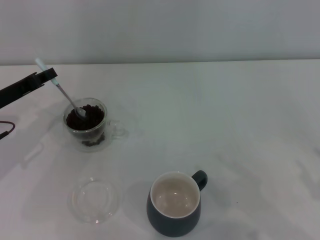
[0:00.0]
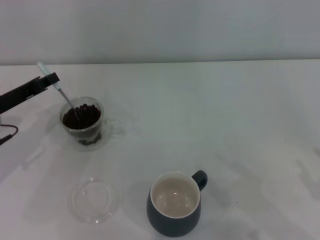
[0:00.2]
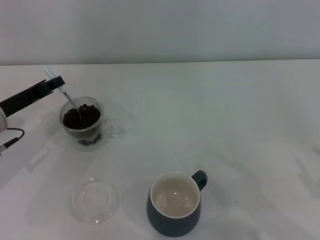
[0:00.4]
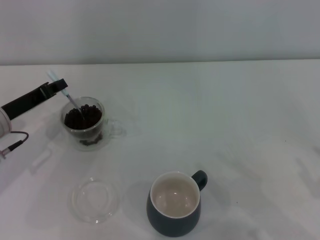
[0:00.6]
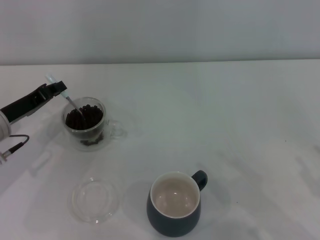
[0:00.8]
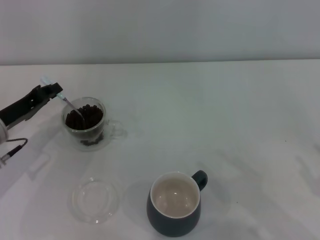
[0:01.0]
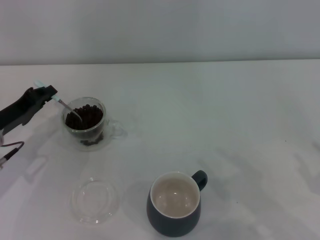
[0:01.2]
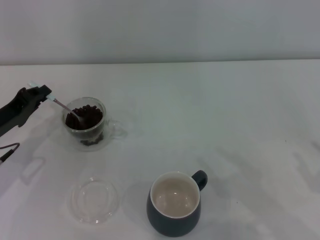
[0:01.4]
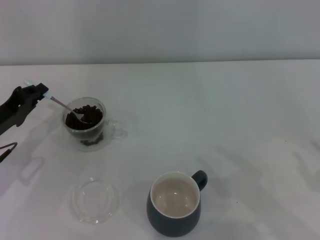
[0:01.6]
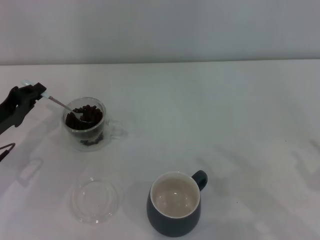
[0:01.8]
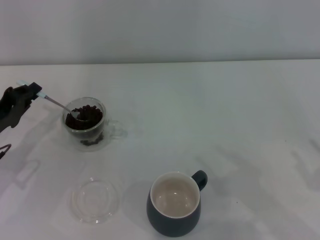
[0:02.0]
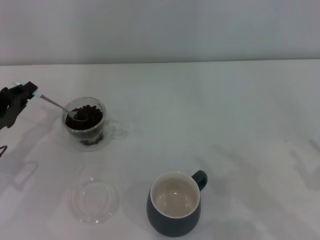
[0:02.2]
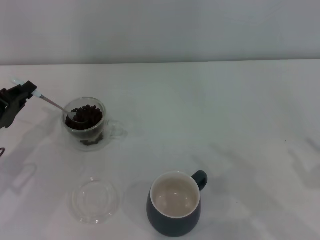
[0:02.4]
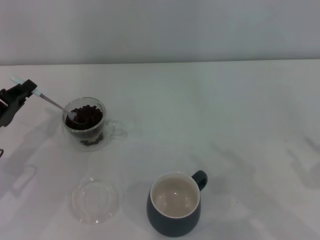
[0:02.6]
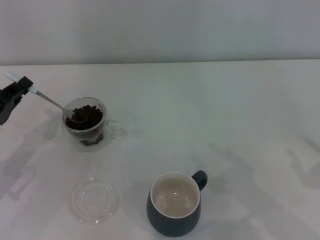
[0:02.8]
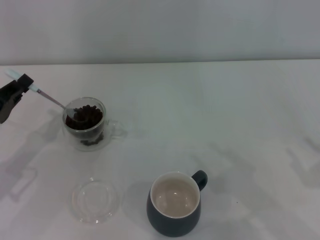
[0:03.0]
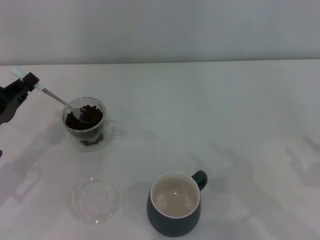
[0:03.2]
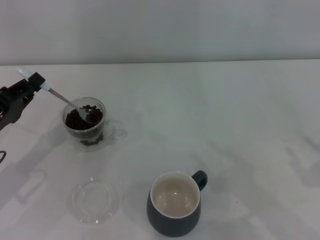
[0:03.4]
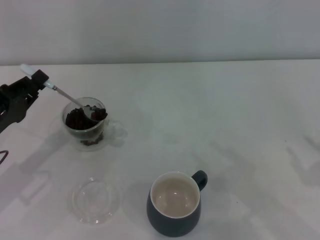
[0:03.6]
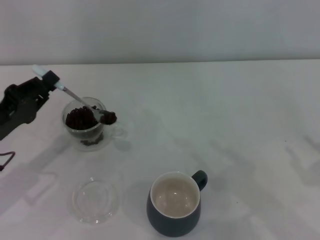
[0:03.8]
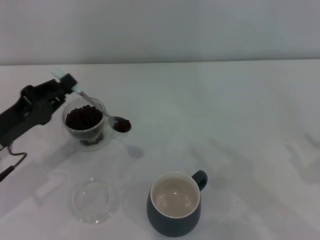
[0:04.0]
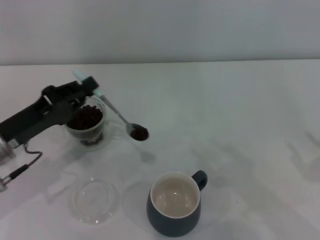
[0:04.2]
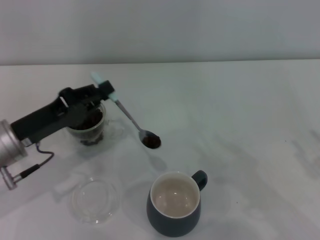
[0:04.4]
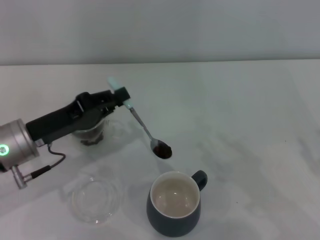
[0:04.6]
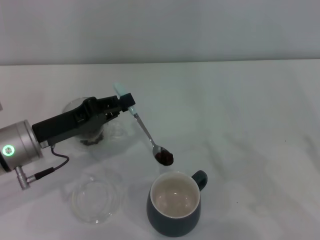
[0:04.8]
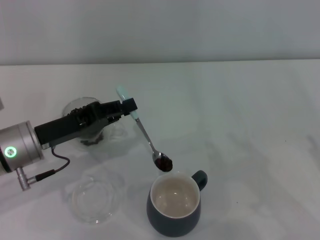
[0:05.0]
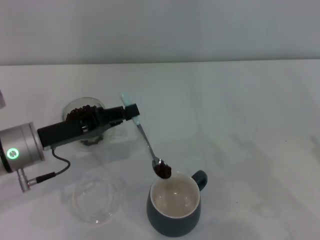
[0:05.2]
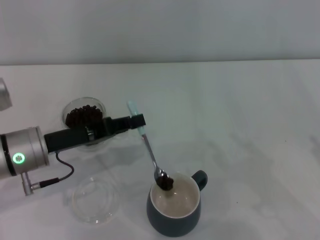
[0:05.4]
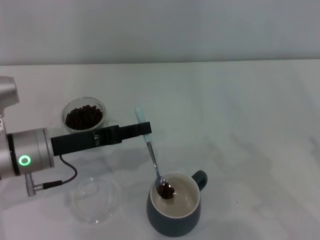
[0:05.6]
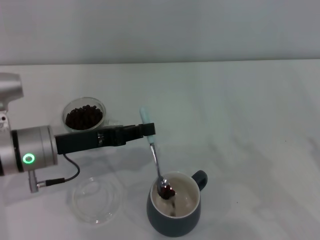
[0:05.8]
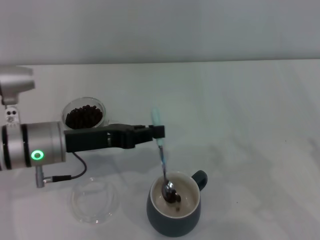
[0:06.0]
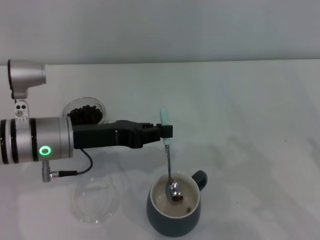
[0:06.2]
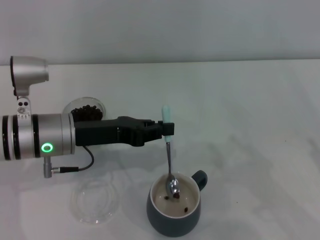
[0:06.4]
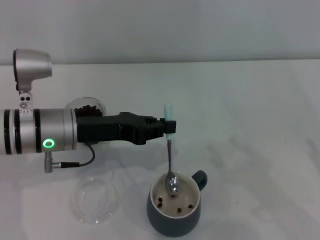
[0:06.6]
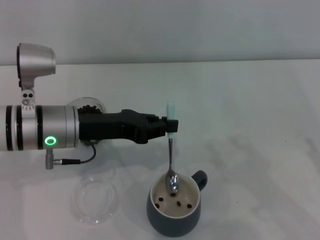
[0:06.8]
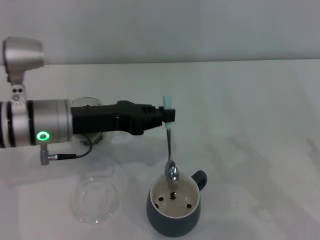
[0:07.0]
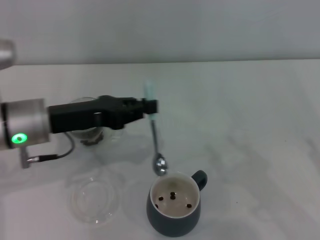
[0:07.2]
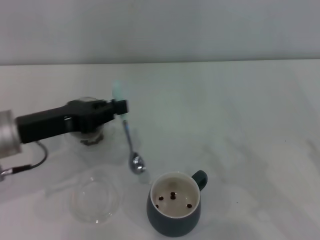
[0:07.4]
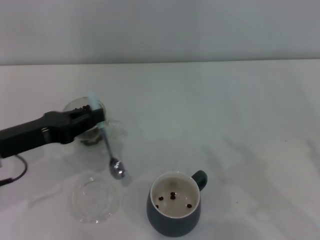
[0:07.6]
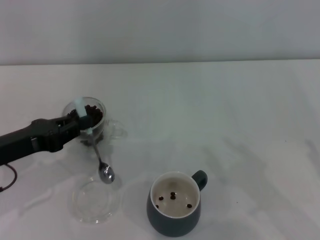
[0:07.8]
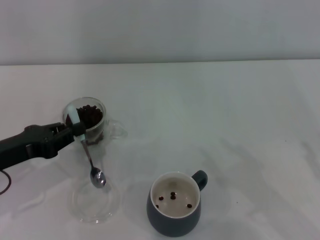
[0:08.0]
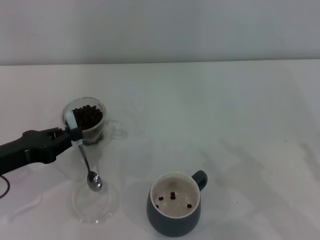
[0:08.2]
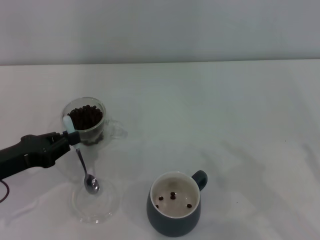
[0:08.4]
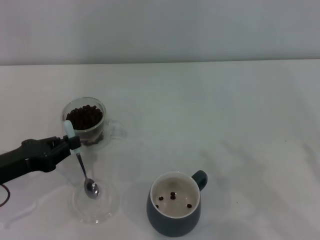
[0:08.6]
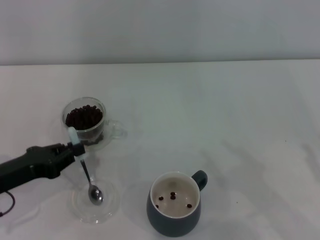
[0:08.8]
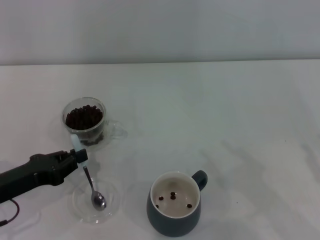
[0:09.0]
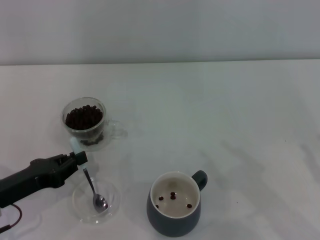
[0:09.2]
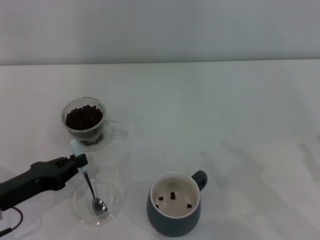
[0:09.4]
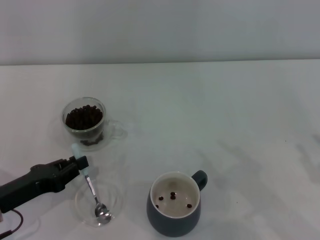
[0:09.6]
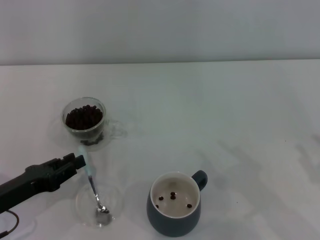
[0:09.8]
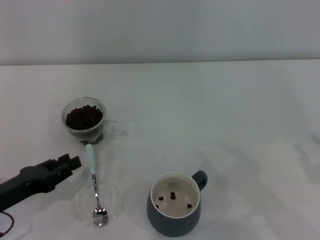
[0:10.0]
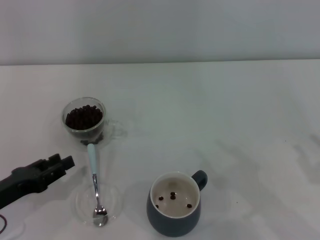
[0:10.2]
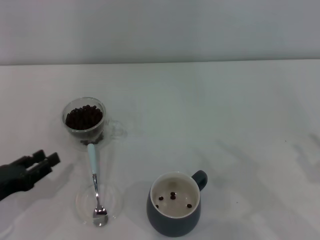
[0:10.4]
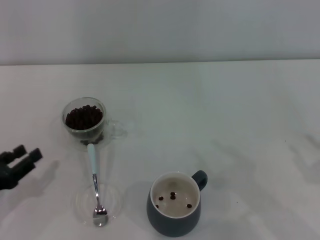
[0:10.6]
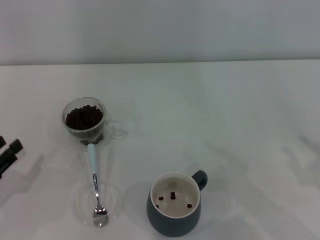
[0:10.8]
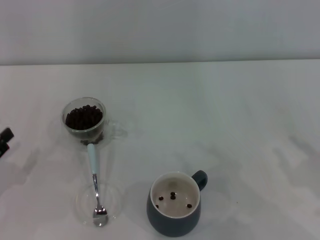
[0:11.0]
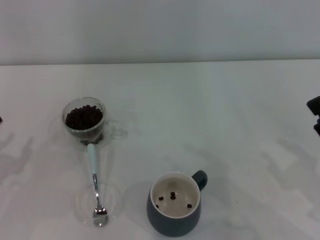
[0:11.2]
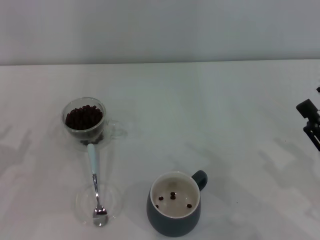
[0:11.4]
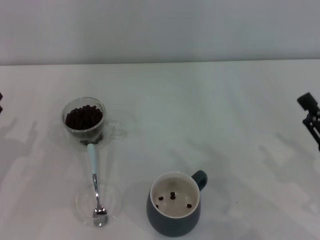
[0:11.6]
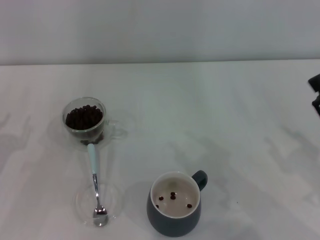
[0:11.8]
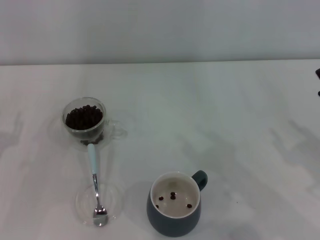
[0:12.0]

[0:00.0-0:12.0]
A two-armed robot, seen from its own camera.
Task of the whole recording: Use a blue spoon to take out the coffee beans from the glass and pour them into the gray cup.
Step, 0:00.0 to 0:07.2: Scoop a spoonful of beans into the cup with the right gripper.
0:01.6 to 0:03.0: The grippers move only a little.
0:03.0 to 0:04.4: The left gripper is displaced to the right by approximately 5 cm.
0:04.4 to 0:06.0: The left gripper goes some 5 cm to the right.
0:06.0 to 0:07.6: The left gripper shifts some 5 cm to the left.
0:07.6 to 0:09.0: The left gripper travels downward by about 5 cm.
0:09.0 to 0:10.4: The left gripper opens.

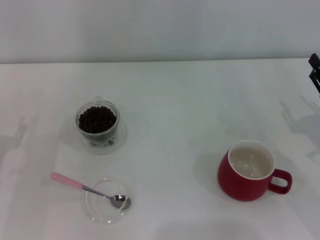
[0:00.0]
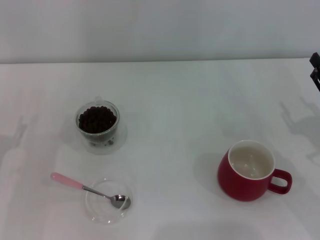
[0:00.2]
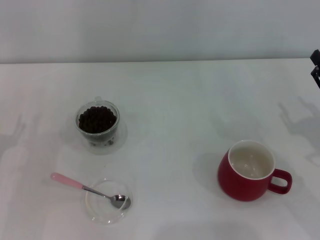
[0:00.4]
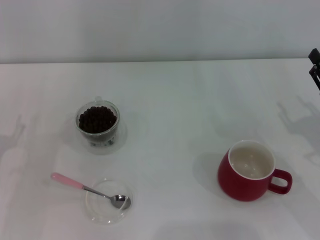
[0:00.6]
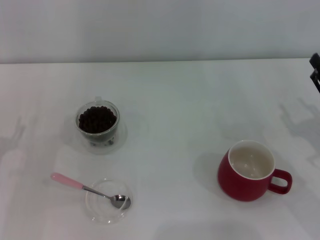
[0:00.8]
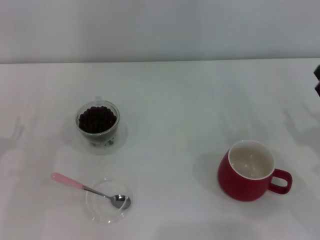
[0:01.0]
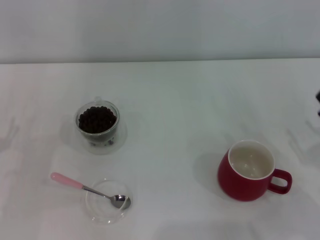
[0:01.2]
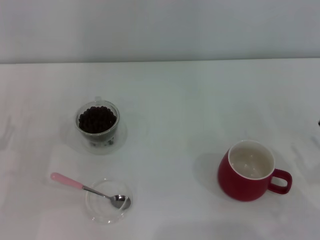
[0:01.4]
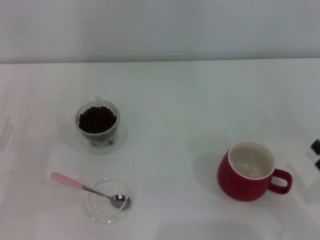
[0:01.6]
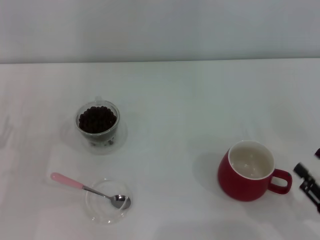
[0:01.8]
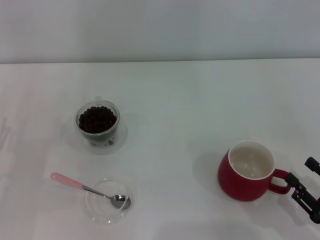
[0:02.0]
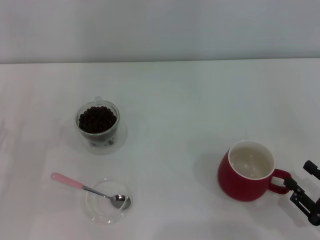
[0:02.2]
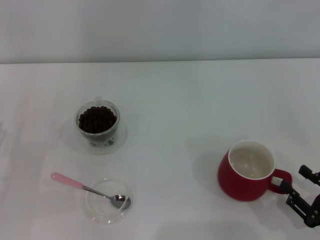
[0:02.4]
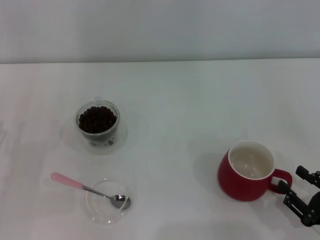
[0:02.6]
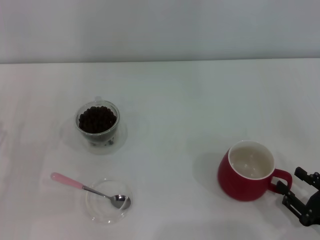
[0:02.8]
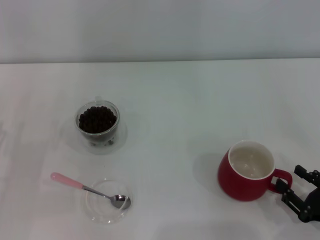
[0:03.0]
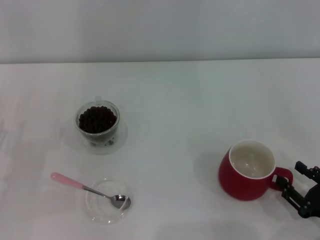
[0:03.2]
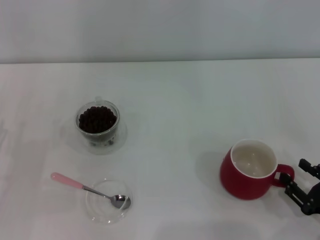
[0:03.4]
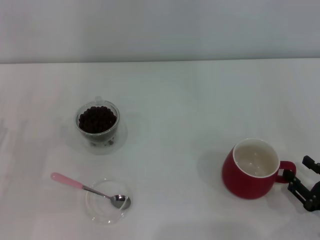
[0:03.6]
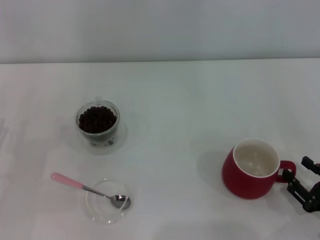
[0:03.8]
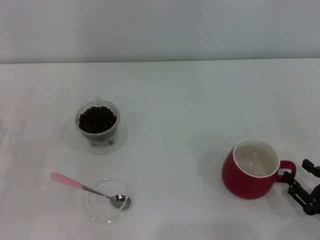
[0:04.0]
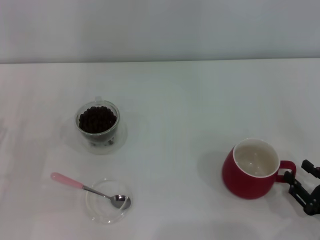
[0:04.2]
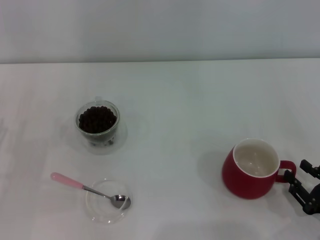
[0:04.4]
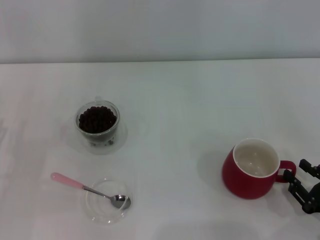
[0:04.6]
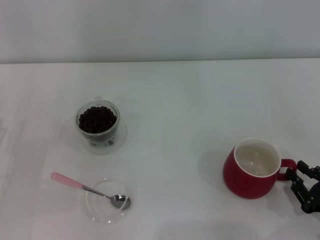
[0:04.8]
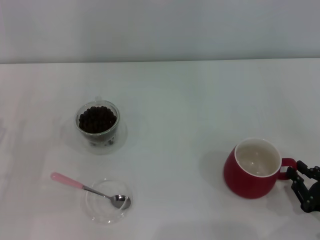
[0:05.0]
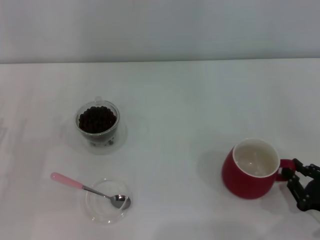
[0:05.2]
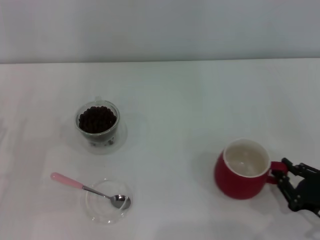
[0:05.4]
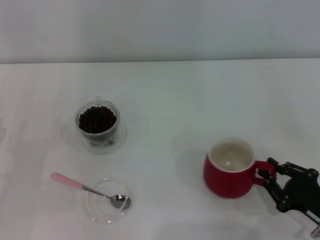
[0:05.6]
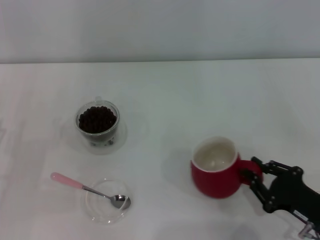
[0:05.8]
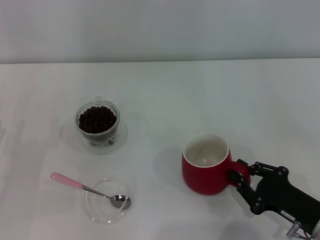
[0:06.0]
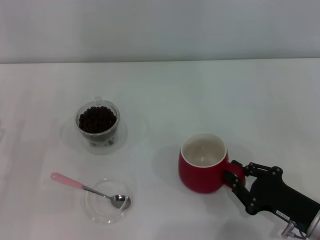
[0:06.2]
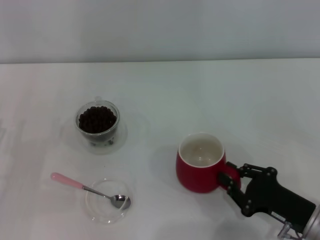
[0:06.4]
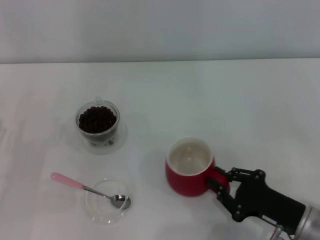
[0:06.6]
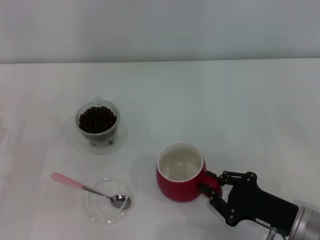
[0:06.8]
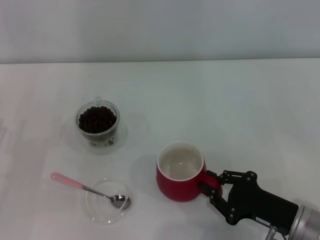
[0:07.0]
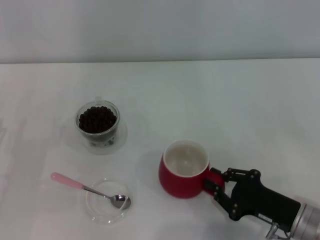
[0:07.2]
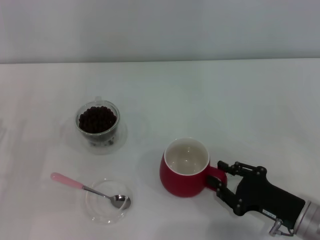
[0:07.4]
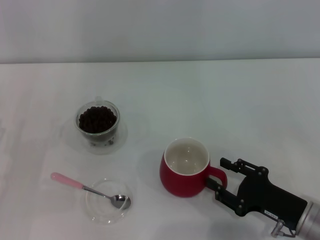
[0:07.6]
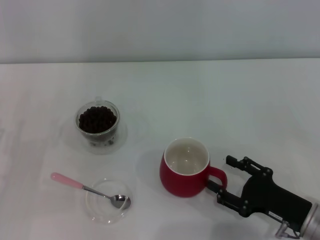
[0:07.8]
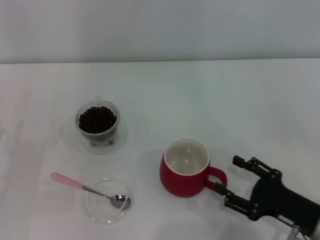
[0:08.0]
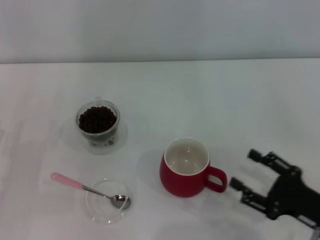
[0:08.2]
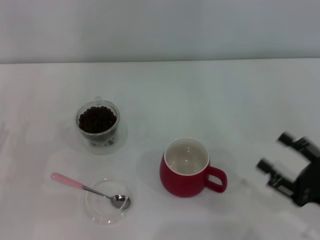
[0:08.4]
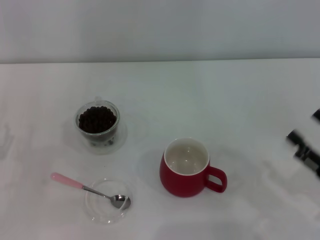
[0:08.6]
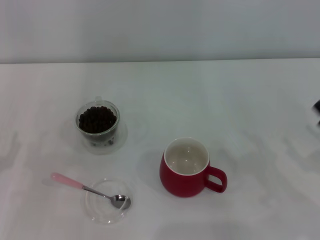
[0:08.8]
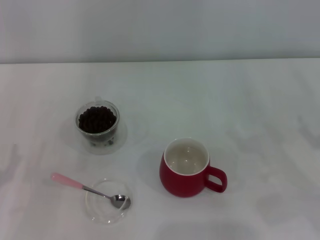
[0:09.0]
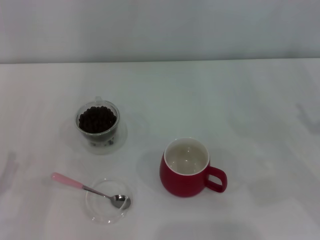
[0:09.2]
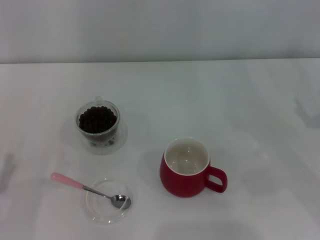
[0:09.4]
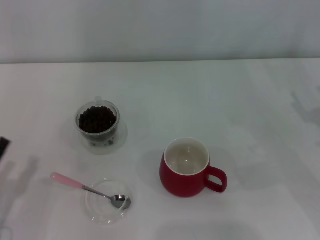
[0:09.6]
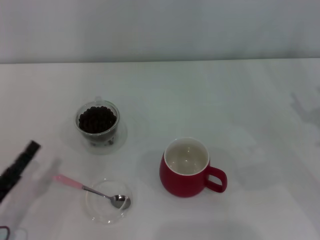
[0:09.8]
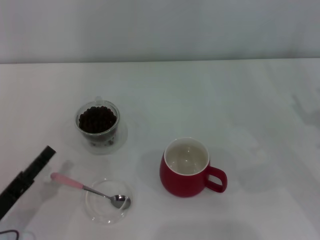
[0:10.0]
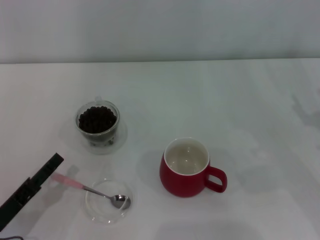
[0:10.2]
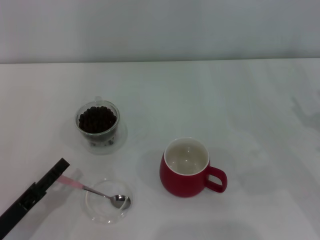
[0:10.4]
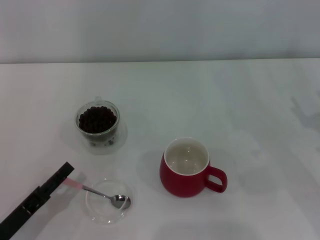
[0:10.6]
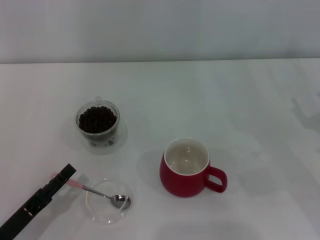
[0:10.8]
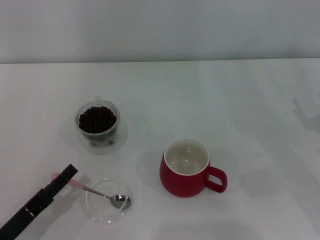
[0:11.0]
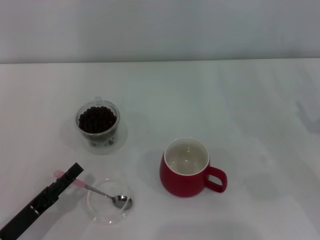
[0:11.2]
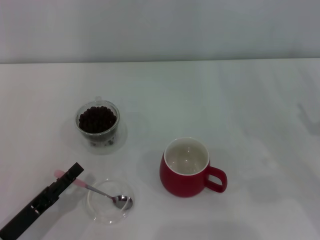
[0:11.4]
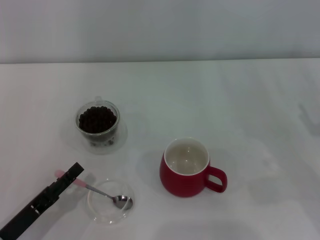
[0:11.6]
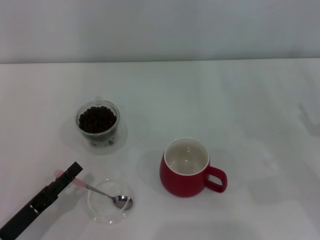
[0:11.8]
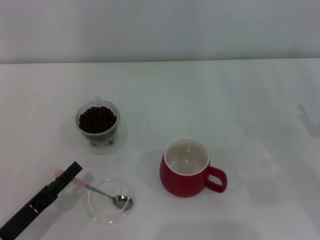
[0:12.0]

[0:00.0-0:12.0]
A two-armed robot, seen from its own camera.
Task of the whole recording: Use a pink spoon to take out the coffee beans from the glass and pour them into the red cup.
Step, 0:00.0 to 0:08.0: Move the cup to the center of view with the left gripper.
0:00.0 to 0:01.6: The right gripper shifts about 10 cm backward.
0:03.0 to 0:04.4: Both grippers stay put.
0:04.4 to 0:06.0: The right gripper moves to the left, approximately 5 cm, and closes its fingers.
0:06.0 to 0:07.6: The grippers move only a little.
0:07.6 to 0:09.0: The right gripper heads to the right and upward, covering approximately 15 cm, and opens up.
0:09.0 to 0:10.4: The left gripper moves some 5 cm.
0:10.4 to 0:12.0: The grippers stay close to where they were, moving slightly.
